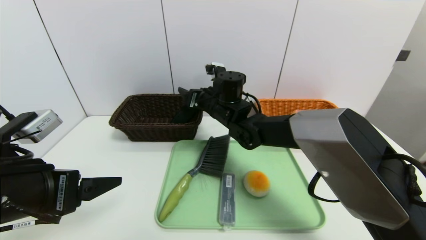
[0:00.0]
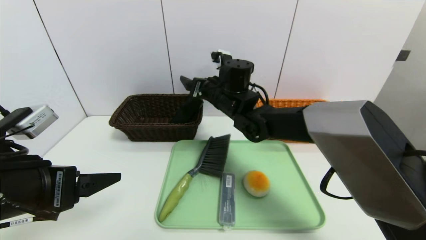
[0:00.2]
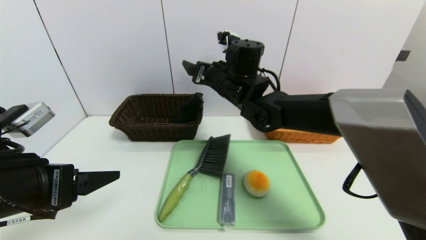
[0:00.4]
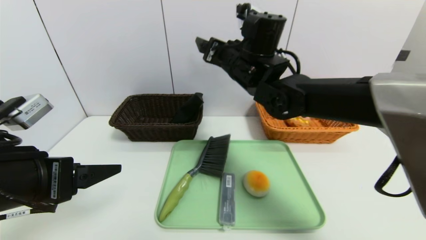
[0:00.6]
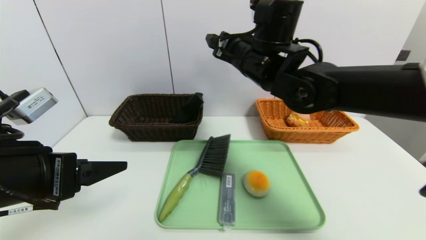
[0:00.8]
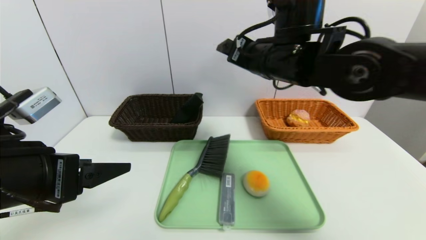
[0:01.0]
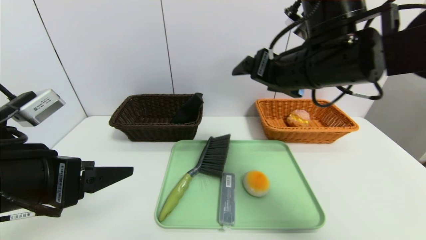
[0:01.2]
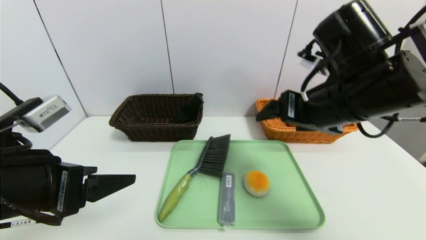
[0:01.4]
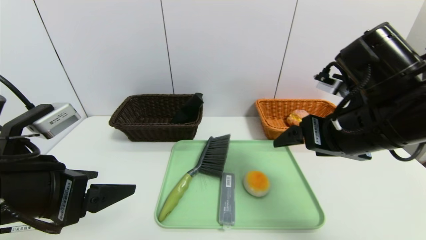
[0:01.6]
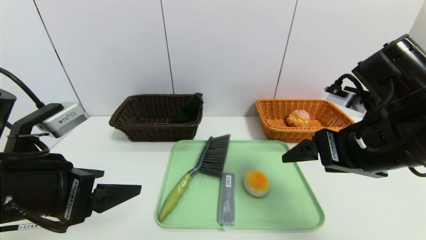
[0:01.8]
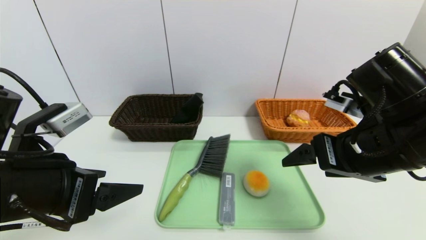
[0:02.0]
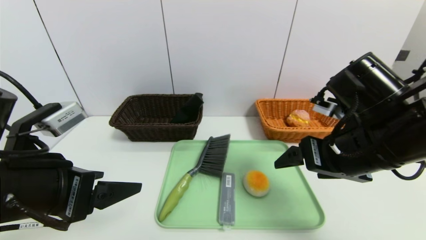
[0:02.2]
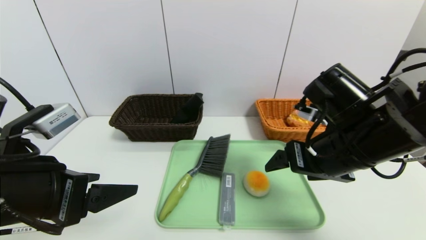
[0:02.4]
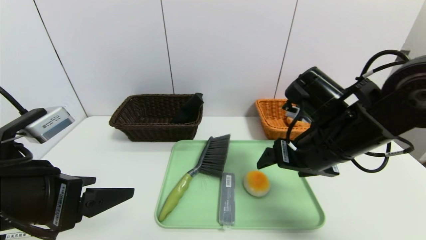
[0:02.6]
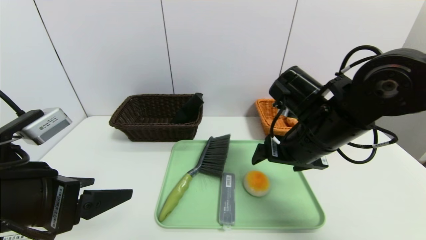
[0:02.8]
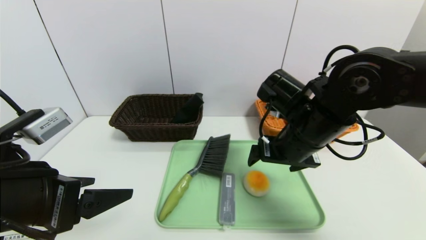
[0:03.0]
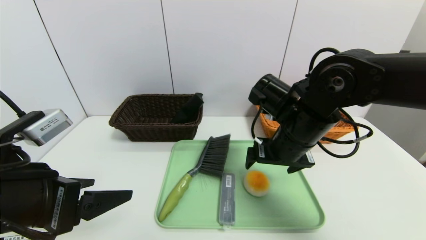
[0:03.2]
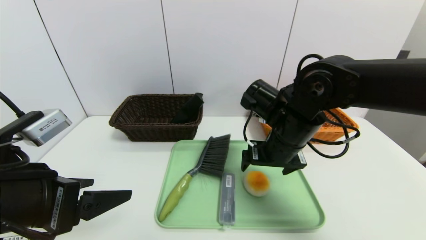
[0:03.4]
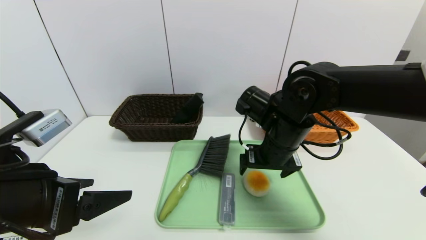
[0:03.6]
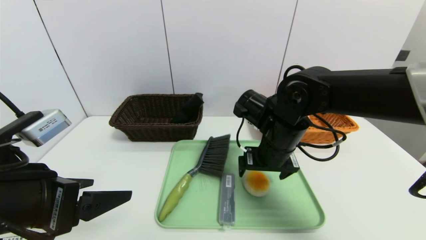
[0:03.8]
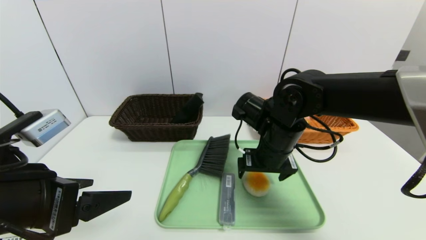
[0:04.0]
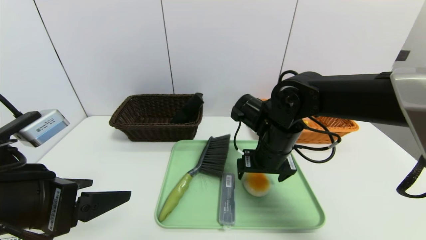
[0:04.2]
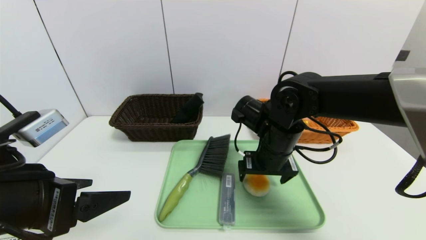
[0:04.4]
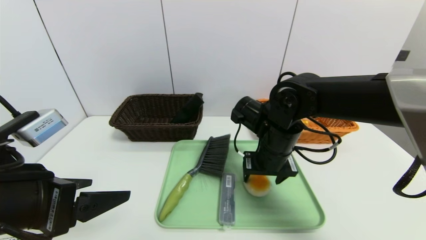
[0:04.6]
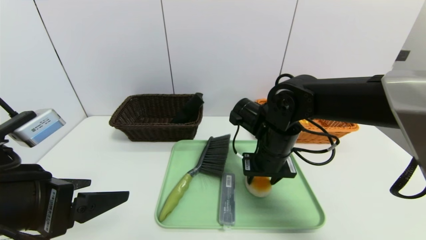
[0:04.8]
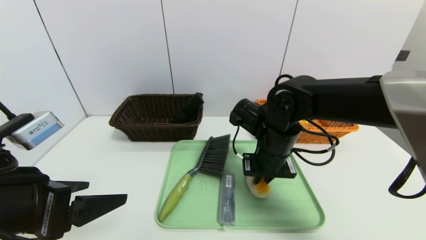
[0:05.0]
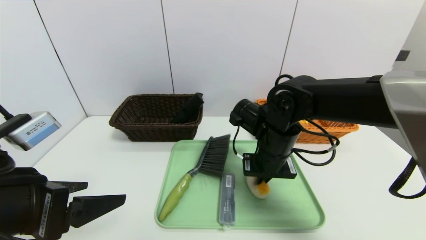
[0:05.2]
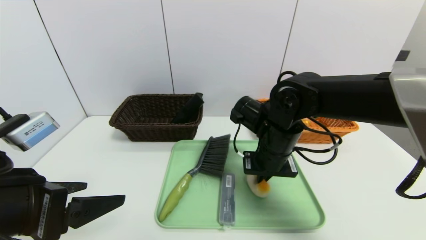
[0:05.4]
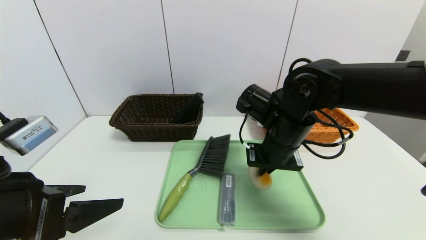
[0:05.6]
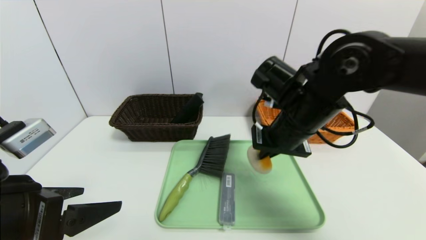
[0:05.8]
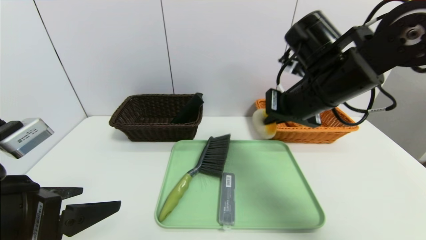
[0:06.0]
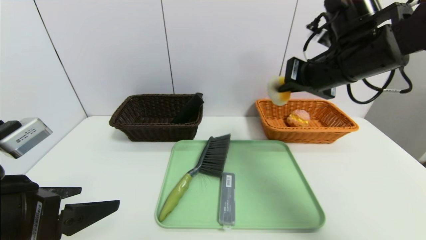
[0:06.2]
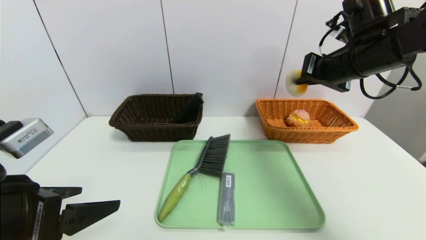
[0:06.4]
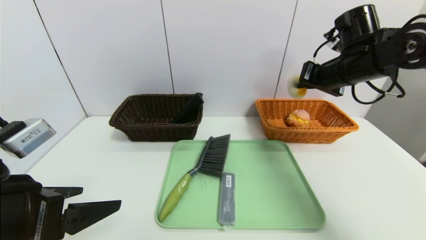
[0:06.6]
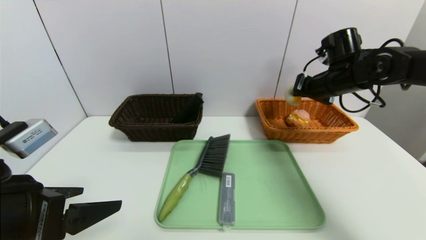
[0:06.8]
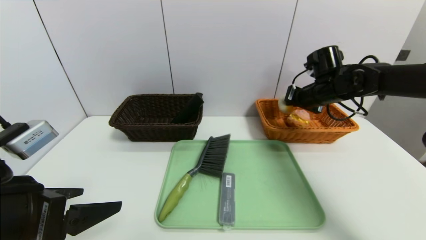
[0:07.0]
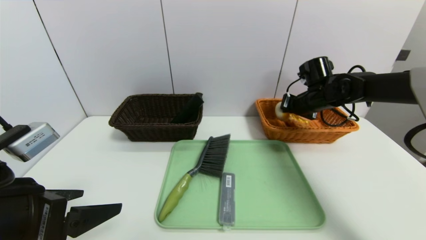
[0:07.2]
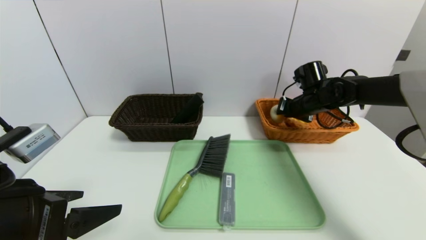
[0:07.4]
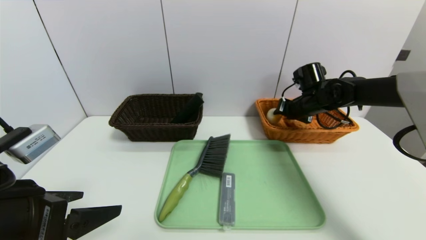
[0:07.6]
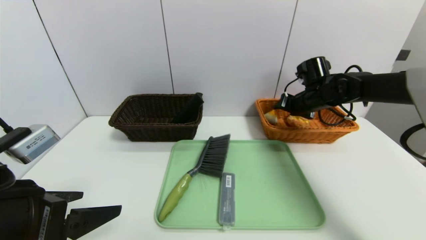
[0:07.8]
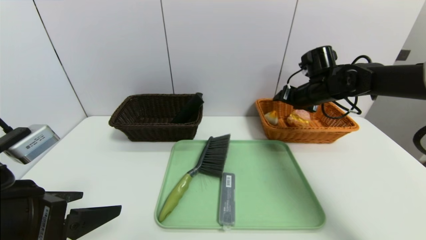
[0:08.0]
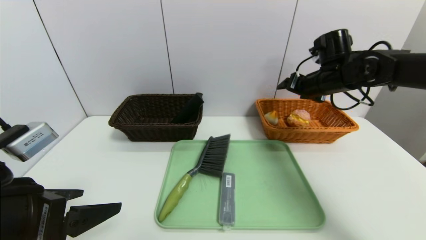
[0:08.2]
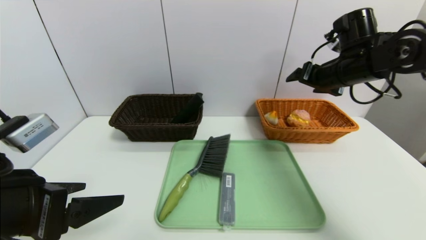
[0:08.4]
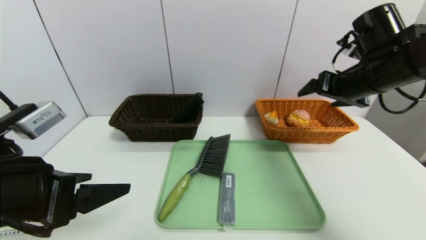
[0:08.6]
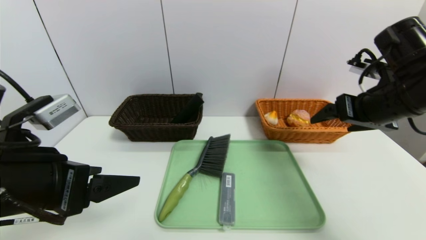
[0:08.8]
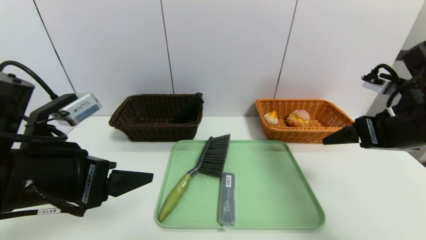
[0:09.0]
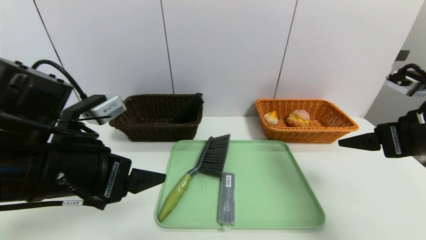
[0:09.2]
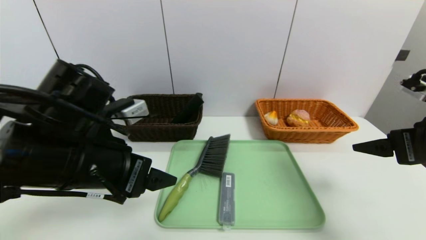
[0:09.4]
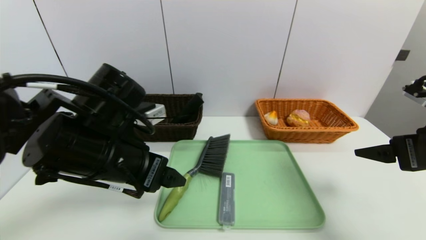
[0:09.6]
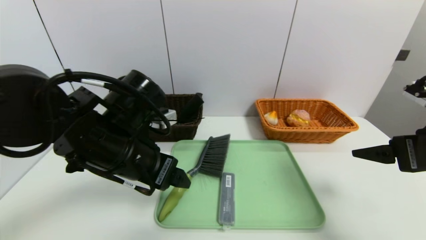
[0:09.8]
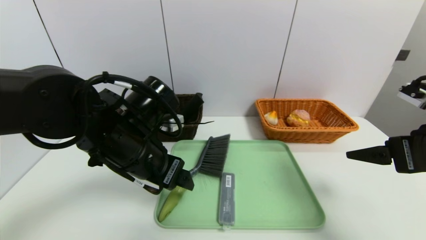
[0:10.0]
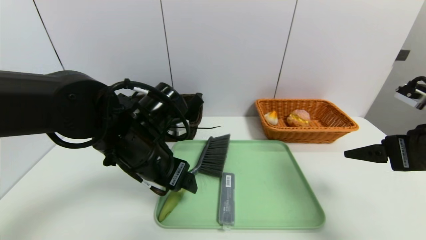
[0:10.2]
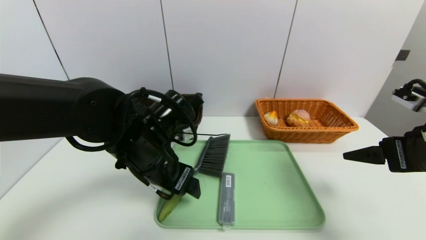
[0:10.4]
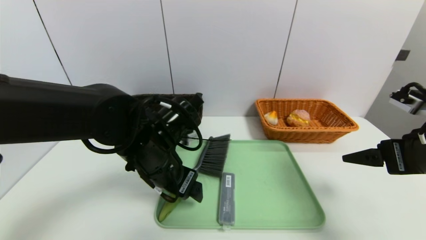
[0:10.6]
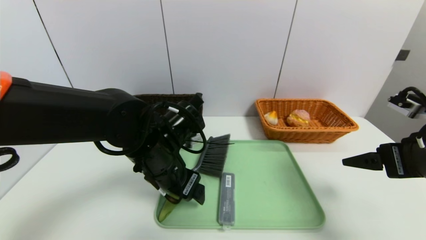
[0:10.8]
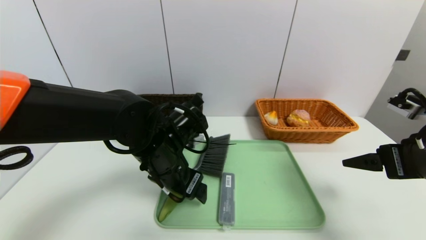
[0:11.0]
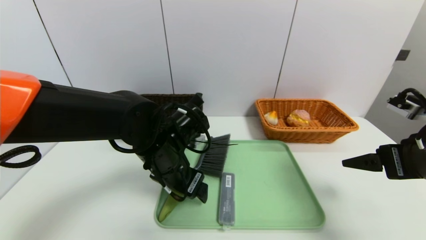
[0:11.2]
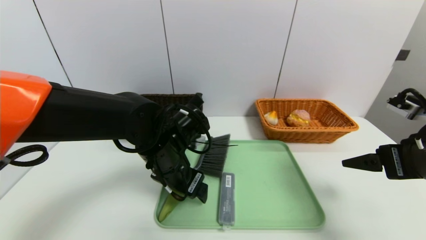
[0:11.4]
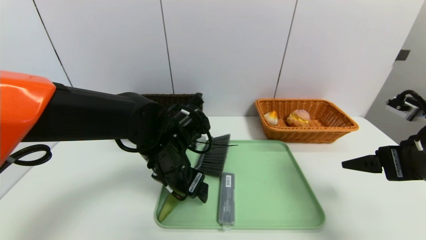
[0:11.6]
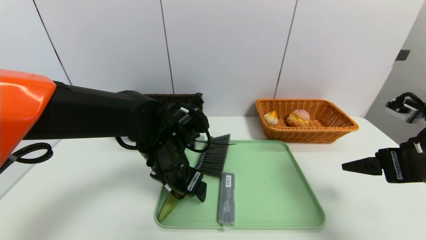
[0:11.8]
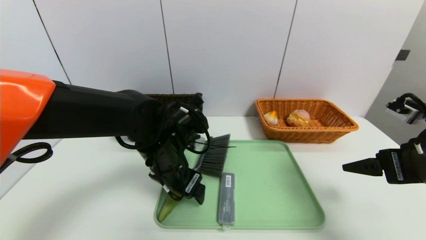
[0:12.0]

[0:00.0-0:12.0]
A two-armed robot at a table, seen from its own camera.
Task of the whole recording: place the food in the right basket with the right gripper, and place the non food items in the left basket with the left gripper.
Step, 0:00.4 to 0:07.6: Grasp the egg yolk pastry and put it in the right basket.
0:00.0 to 0:01.6: The right gripper moves backward, to the right and upward, approximately 30 cm.
0:01.6 to 0:03.0: The right gripper heads forward and to the left, covering about 10 cm.
0:03.0 to 0:04.4: The right gripper ends up some 5 cm from where it was.
0:04.4 to 0:06.0: The right gripper heads upward and to the right, covering approximately 15 cm, and closes.
0:06.0 to 0:07.6: The right gripper heads forward, downward and to the right, covering some 20 cm, and opens up.
0:07.6 to 0:09.0: The right gripper heads backward, covering approximately 25 cm, and opens its fingers. Meanwhile the left gripper moves some 5 cm.
0:09.0 to 0:10.4: The left gripper moves to the right, forward and downward, some 15 cm.
0:10.4 to 0:12.0: The grippers move only a little.

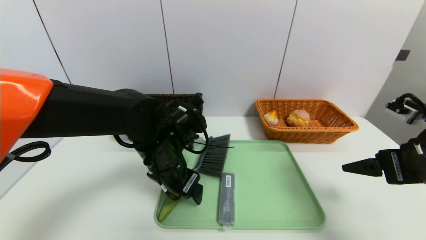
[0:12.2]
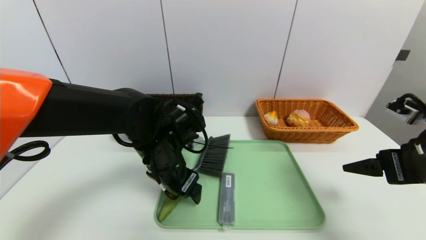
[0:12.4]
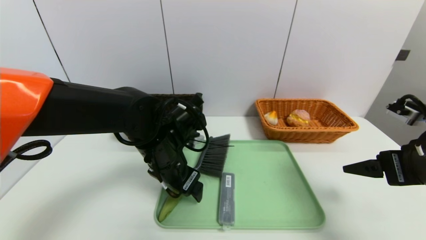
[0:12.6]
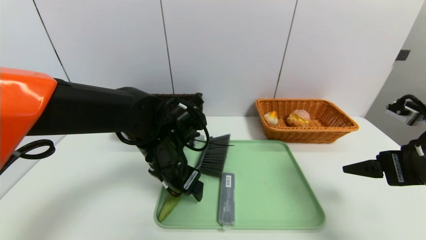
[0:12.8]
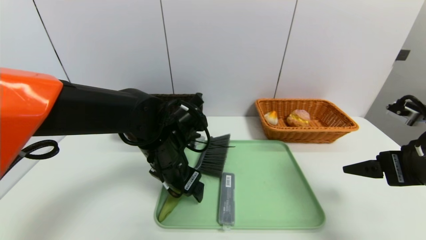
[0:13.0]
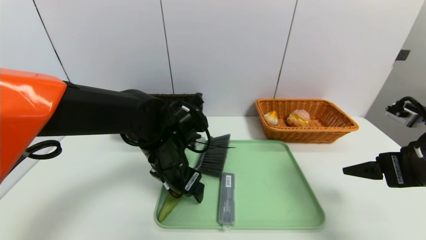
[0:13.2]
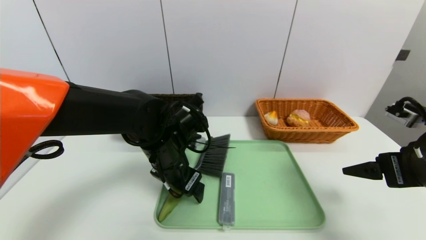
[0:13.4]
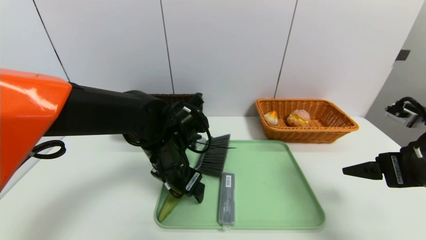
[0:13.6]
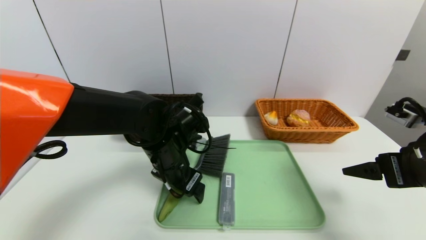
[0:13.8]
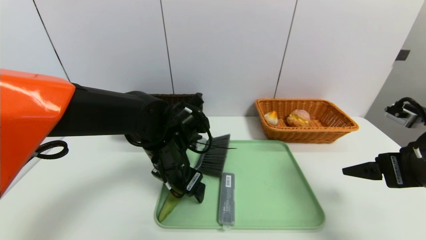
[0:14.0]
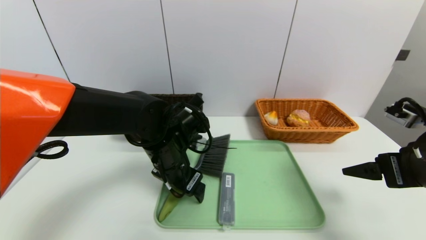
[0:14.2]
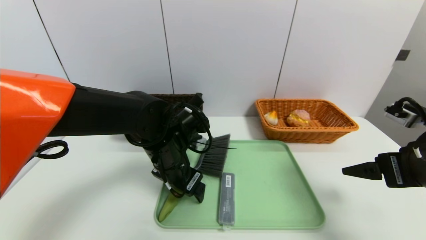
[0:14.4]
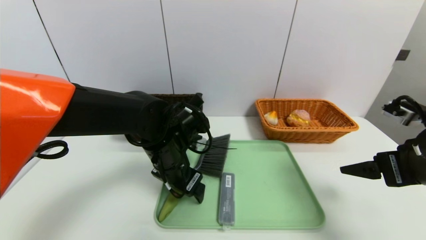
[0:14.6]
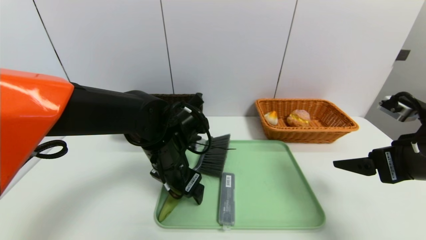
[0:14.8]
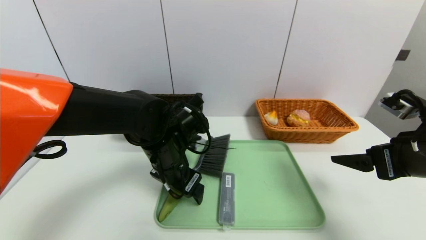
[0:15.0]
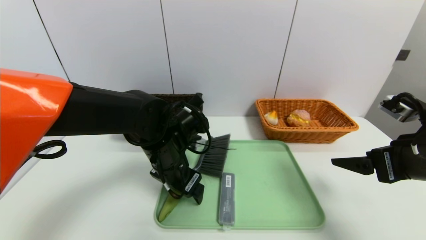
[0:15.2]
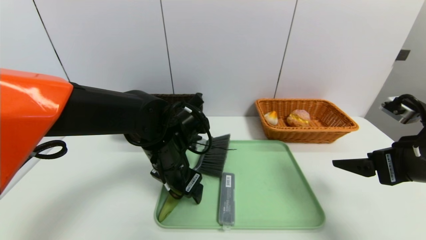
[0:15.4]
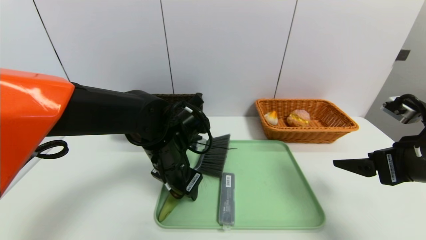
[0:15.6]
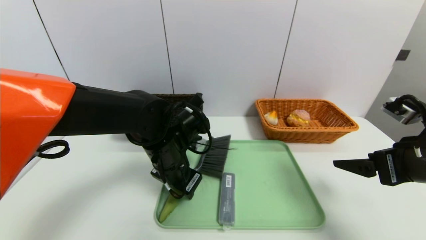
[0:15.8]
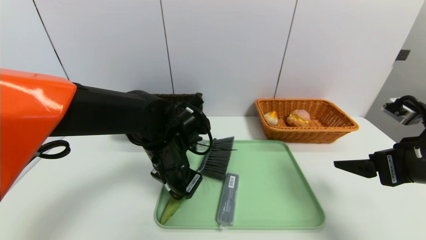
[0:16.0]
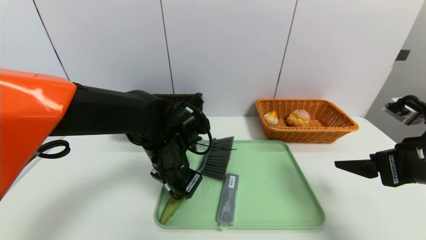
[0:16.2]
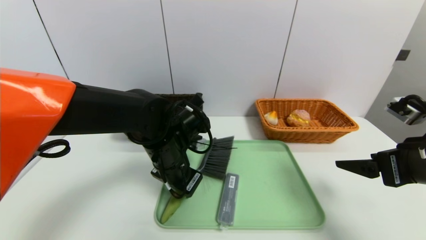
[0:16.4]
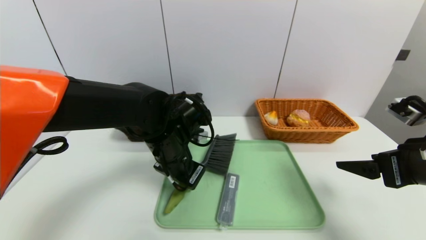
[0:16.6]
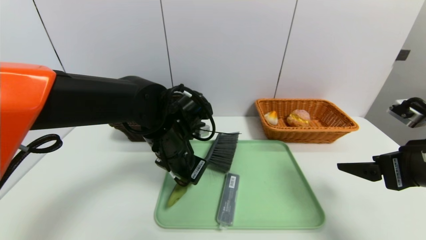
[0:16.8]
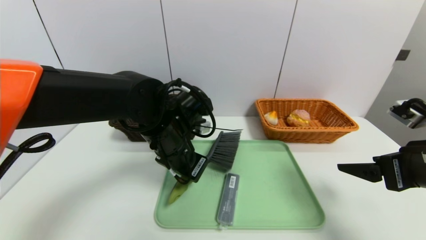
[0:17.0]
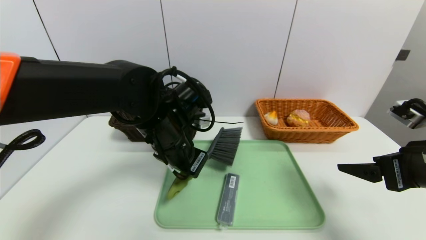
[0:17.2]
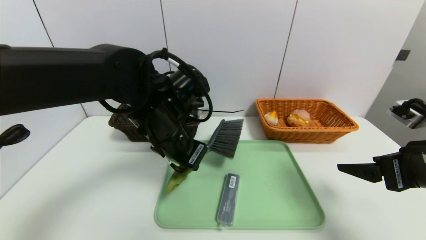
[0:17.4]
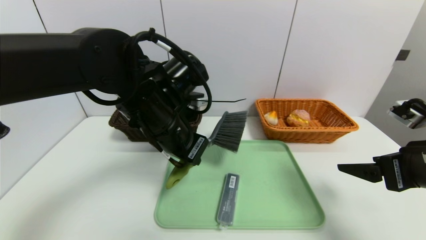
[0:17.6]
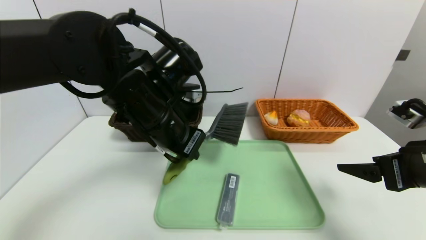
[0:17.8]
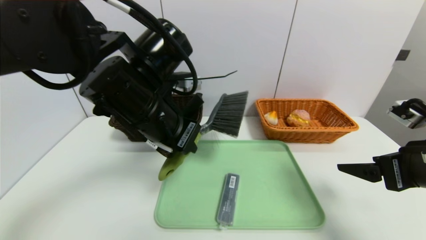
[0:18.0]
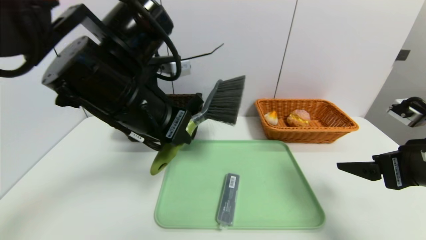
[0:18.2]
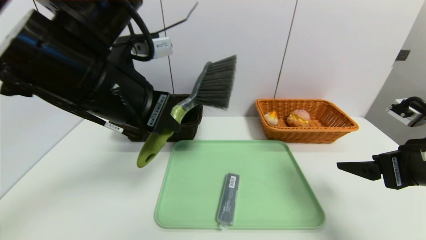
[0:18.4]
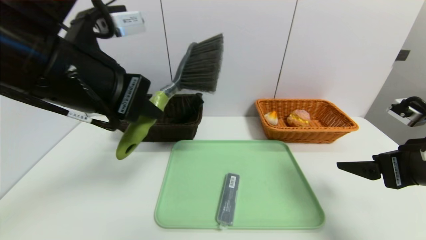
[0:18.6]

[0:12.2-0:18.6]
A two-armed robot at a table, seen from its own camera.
Task of the whole recording: place the food in the right basket with the right gripper, and place the non food items in the left basket with the left gripper.
0:12.2 to 0:13.8: Neither gripper changes place.
0:13.8 to 0:15.4: The grippers stay close to where they were, moving slightly.
0:15.4 to 0:17.0: The left gripper closes its fingers.
0:17.0 to 0:18.6: The left gripper goes about 20 cm upward, backward and to the left.
